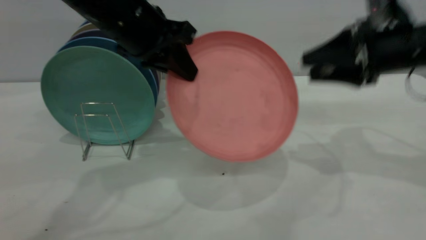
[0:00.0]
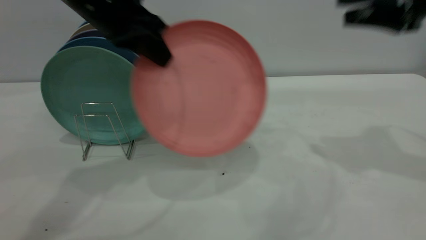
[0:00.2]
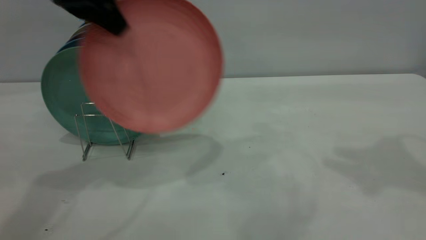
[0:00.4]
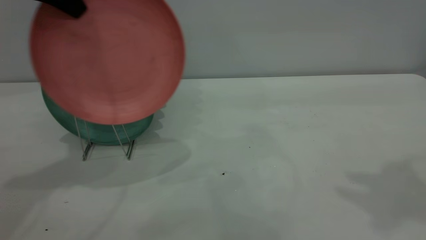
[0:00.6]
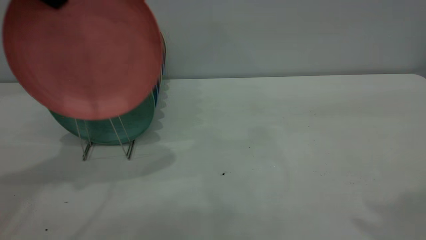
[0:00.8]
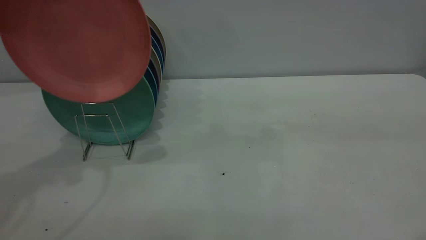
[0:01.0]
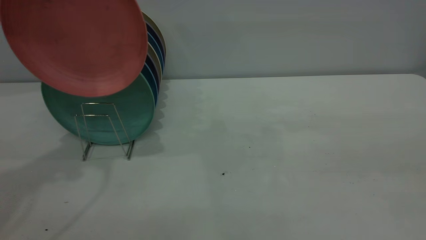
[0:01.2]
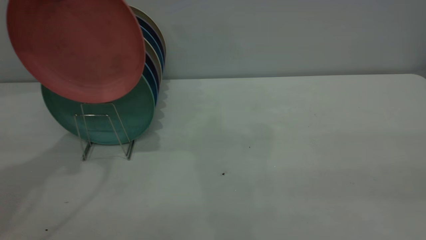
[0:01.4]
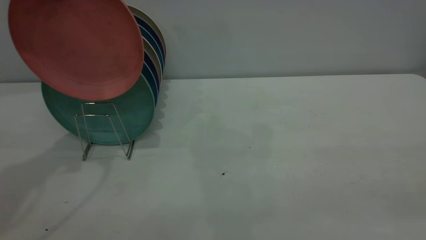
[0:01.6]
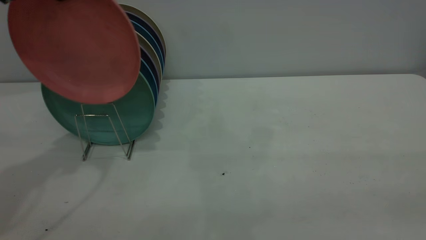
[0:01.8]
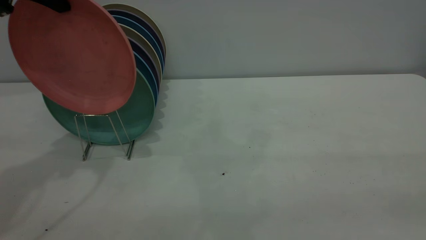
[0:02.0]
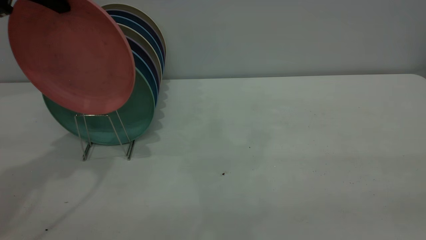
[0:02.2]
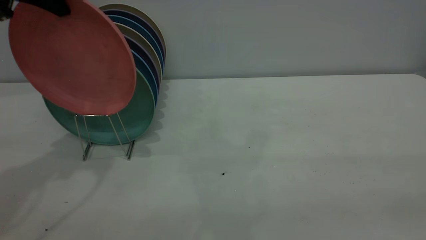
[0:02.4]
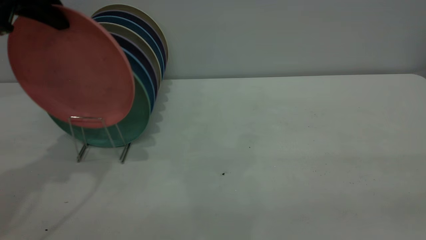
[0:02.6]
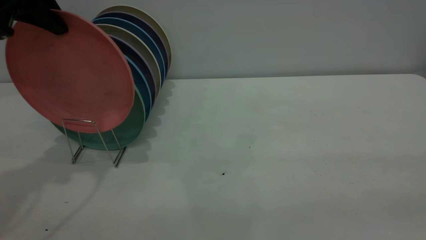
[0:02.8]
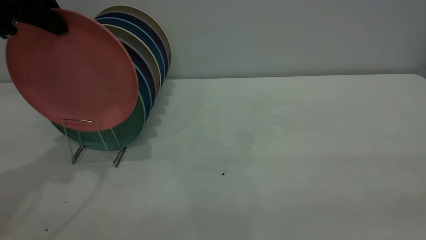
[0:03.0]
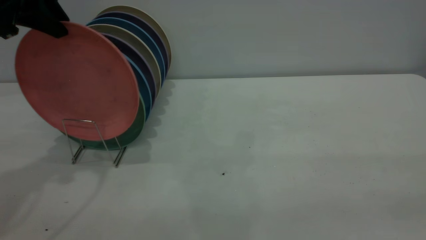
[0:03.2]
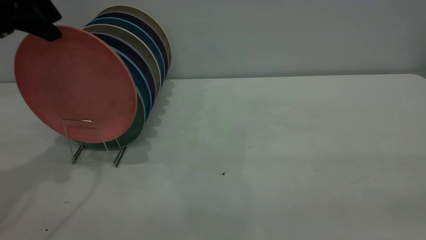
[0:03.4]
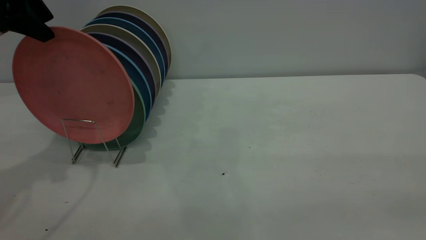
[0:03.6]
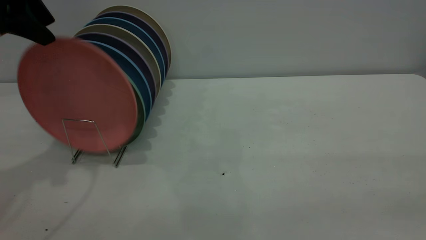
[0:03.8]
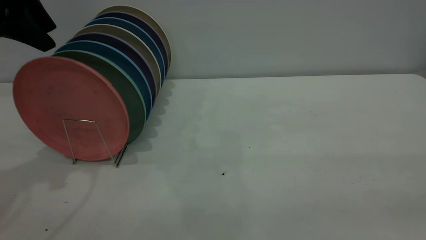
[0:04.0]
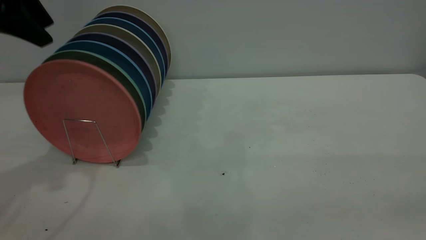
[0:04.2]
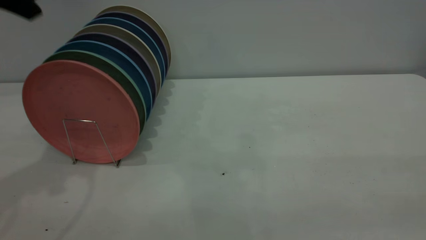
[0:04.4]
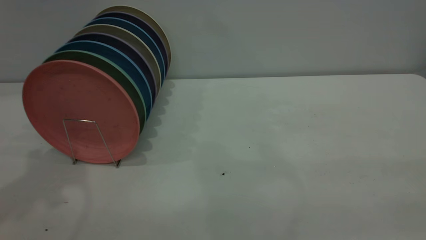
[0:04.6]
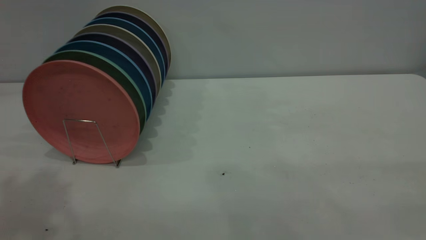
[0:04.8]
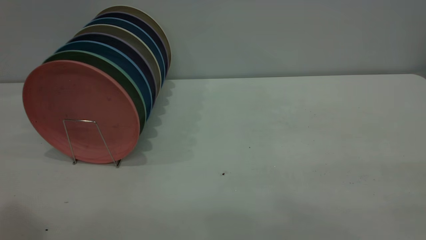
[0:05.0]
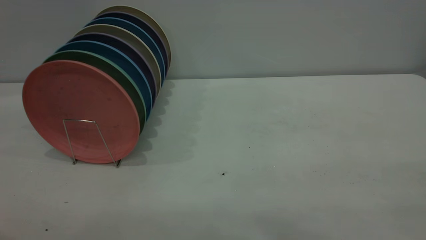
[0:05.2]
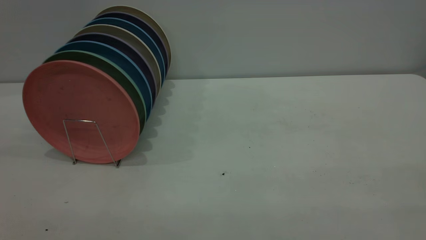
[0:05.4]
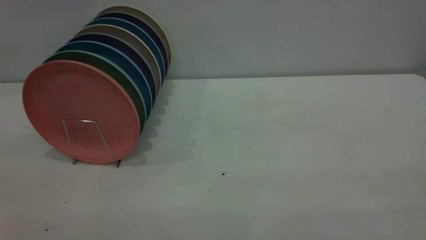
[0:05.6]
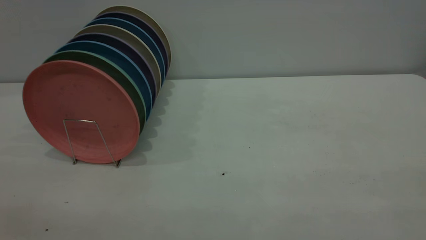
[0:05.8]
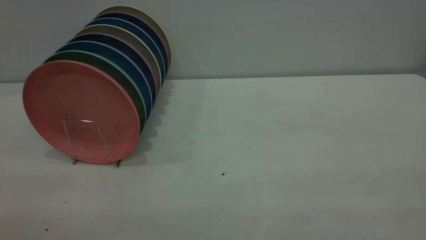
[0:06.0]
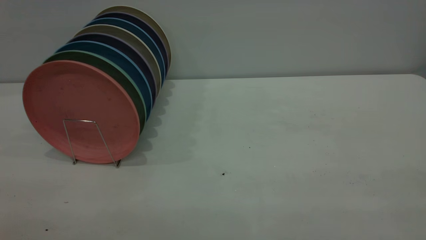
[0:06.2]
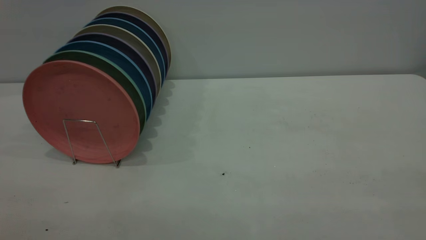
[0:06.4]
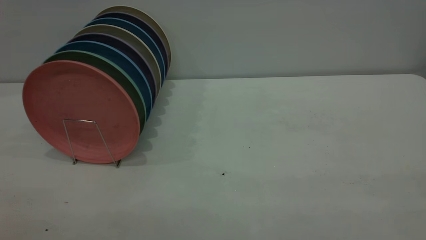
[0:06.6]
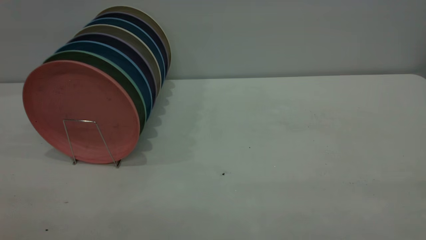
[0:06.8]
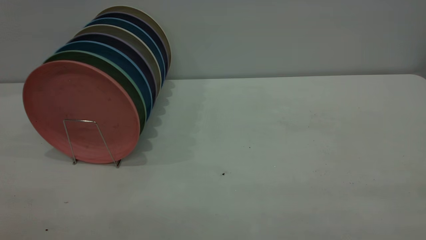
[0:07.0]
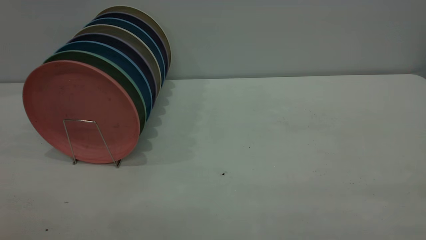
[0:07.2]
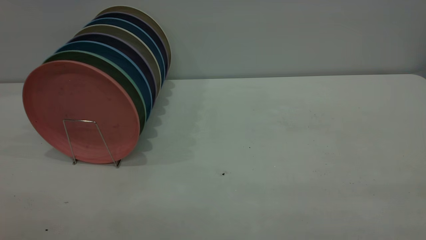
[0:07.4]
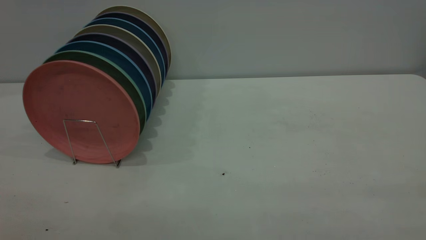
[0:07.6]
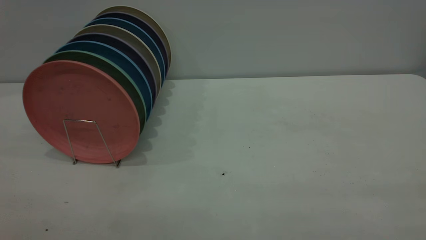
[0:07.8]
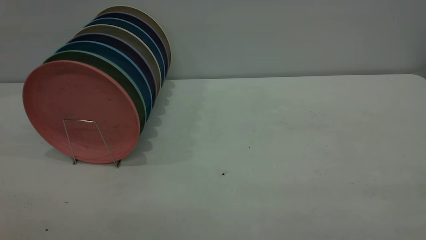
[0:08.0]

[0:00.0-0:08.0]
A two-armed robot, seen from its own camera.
Task of the whole recording: the right gripper grasp the pink plate, the right gripper pass the pink plate to the left gripper, and the left gripper place the pink plate on the plate rack.
Step, 0:00.8 to 0:04.2: Place the plate on the shelf.
0:00.0 to 0:01.6: The left gripper heads to the left and upward, covering about 15 cm. The right gripper goes about 35 cm backward and upward.
0:01.6 to 0:03.2: The left gripper opens its fingers.
0:03.2 to 0:04.8: The left gripper travels upward and backward by some 20 cm.

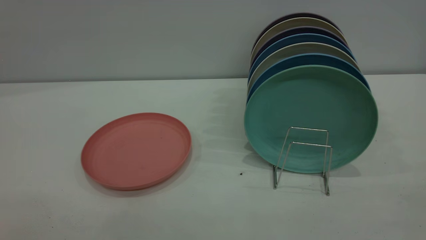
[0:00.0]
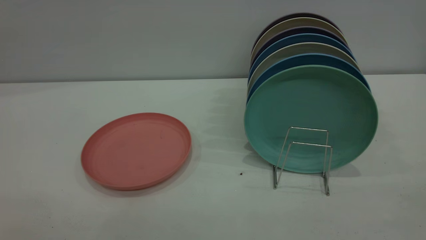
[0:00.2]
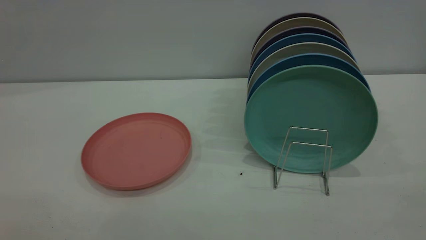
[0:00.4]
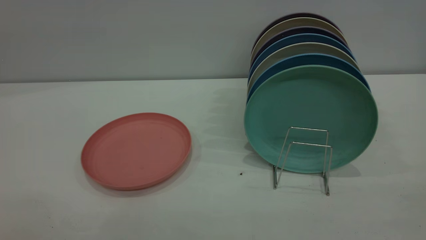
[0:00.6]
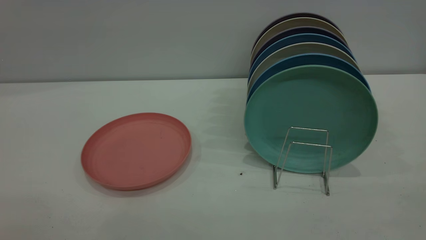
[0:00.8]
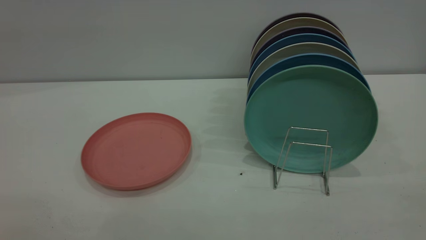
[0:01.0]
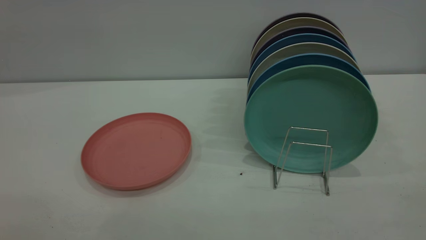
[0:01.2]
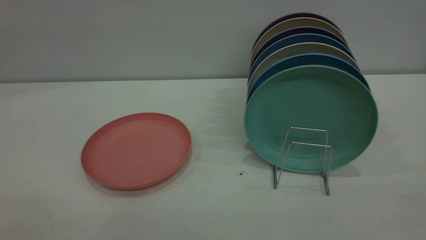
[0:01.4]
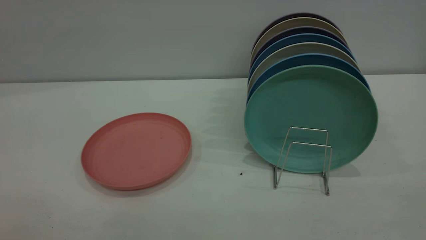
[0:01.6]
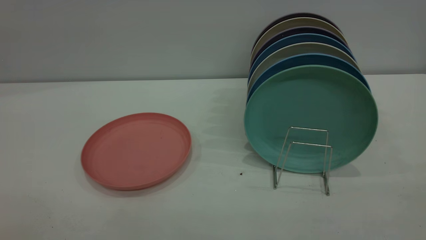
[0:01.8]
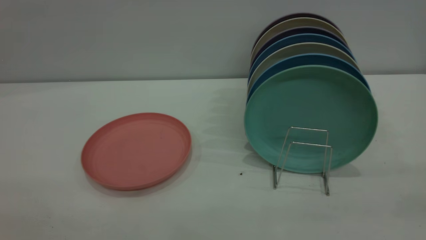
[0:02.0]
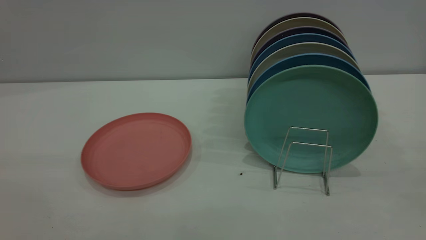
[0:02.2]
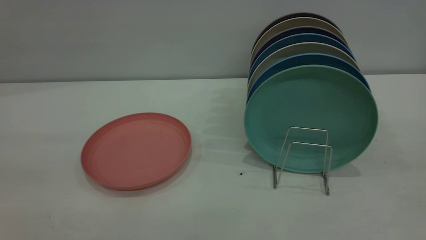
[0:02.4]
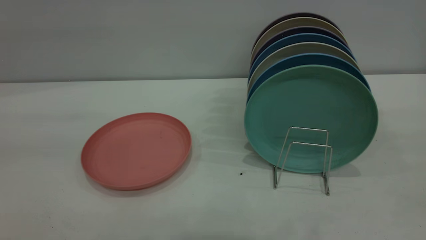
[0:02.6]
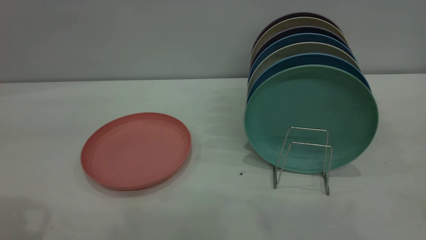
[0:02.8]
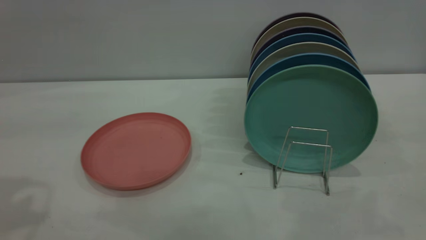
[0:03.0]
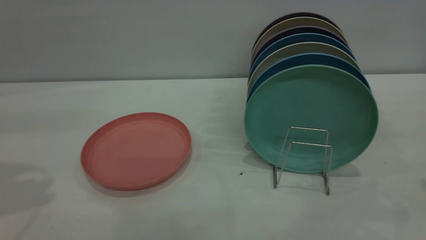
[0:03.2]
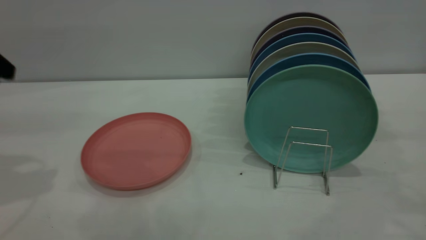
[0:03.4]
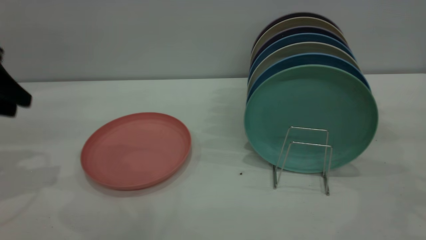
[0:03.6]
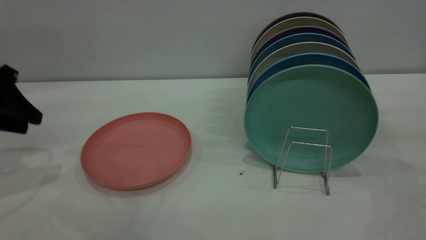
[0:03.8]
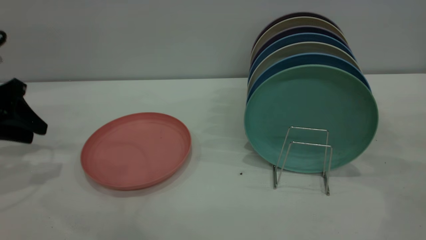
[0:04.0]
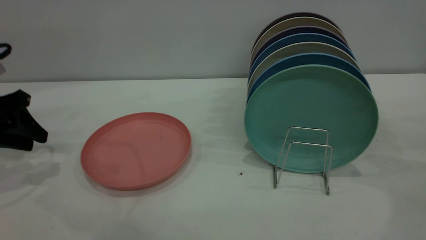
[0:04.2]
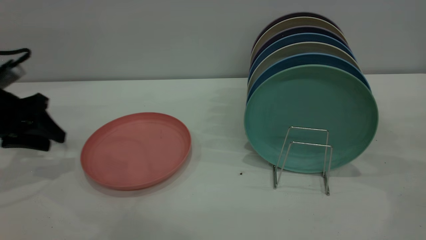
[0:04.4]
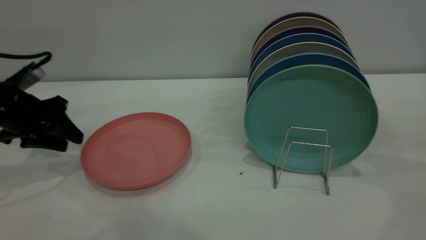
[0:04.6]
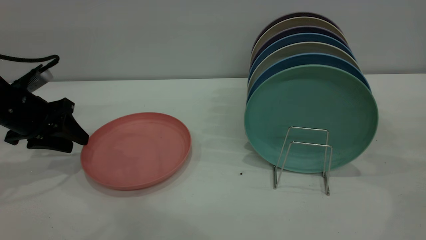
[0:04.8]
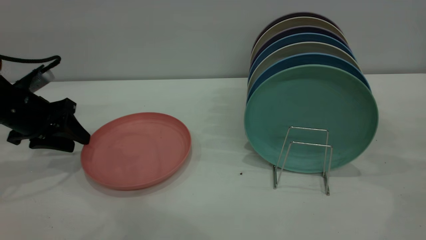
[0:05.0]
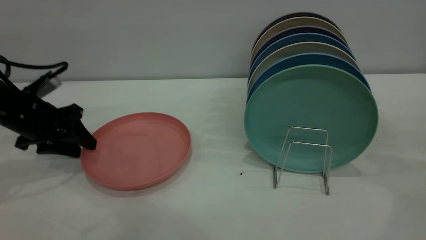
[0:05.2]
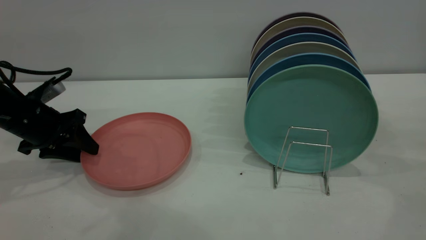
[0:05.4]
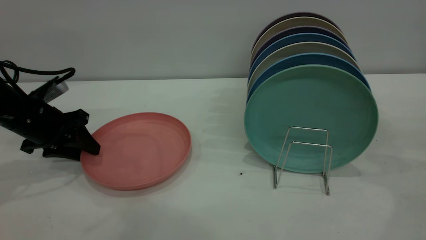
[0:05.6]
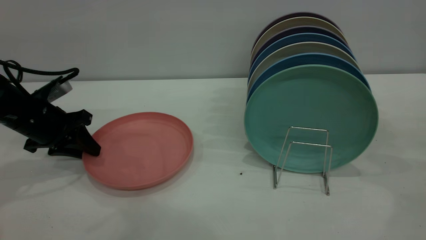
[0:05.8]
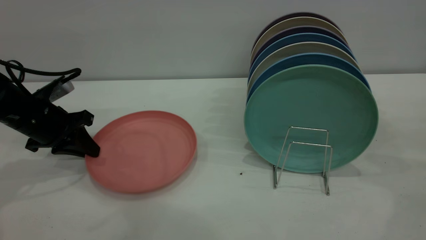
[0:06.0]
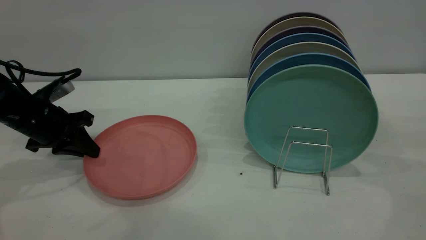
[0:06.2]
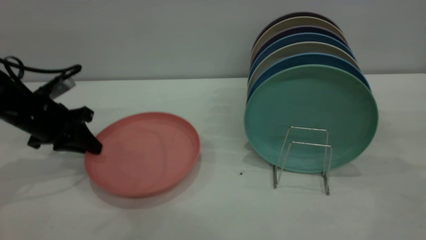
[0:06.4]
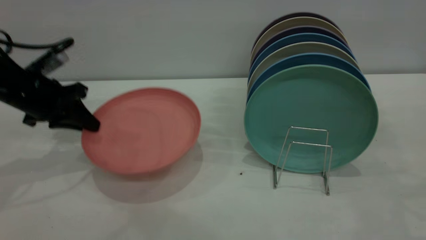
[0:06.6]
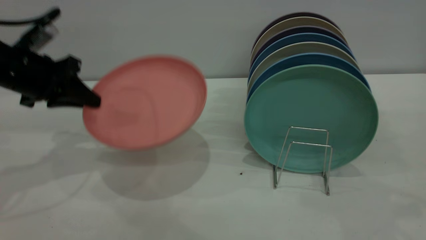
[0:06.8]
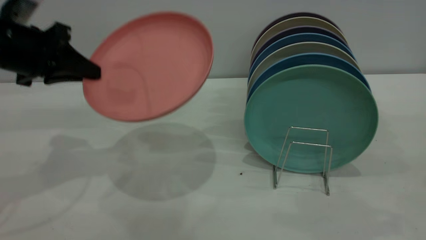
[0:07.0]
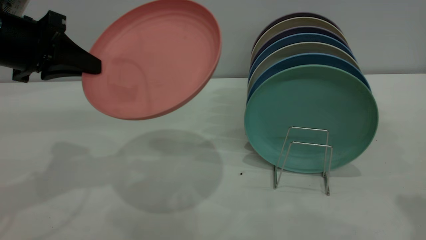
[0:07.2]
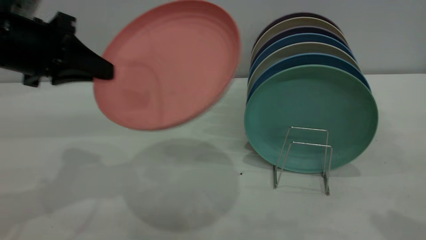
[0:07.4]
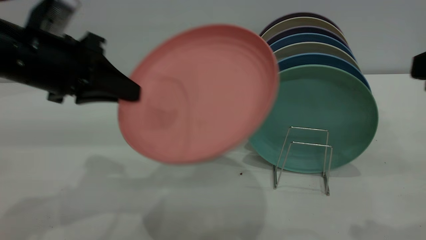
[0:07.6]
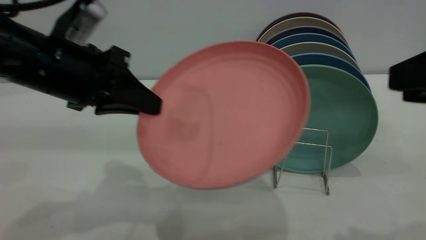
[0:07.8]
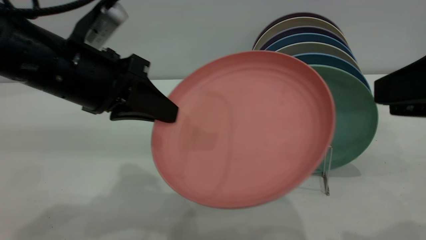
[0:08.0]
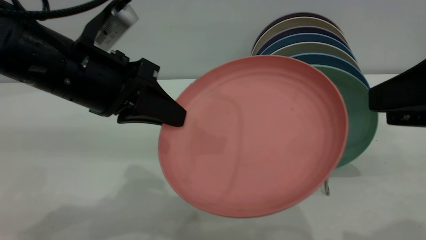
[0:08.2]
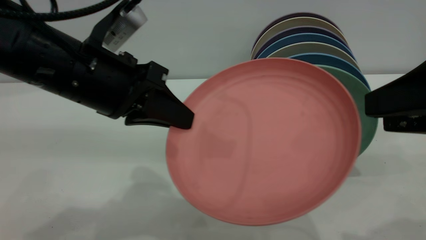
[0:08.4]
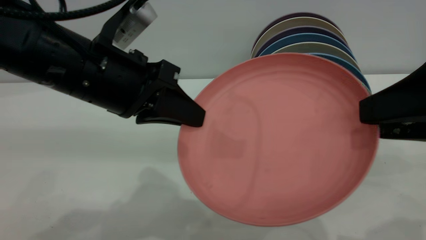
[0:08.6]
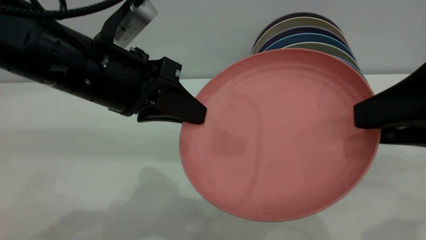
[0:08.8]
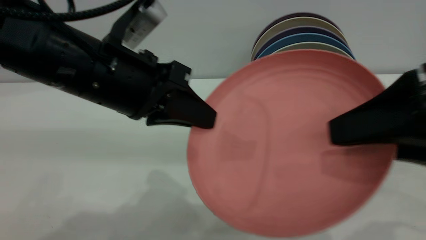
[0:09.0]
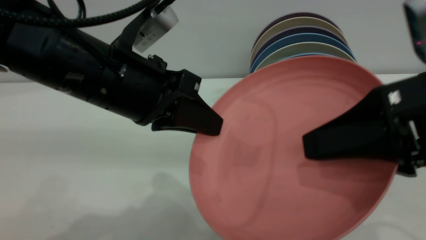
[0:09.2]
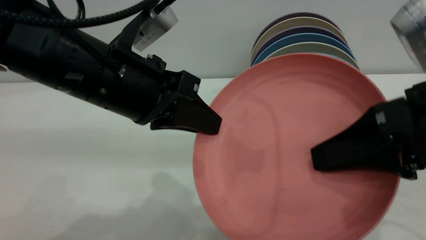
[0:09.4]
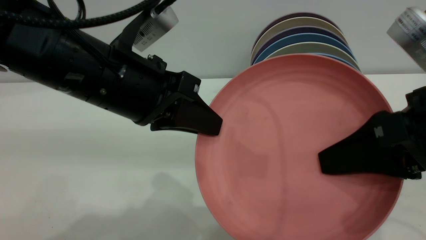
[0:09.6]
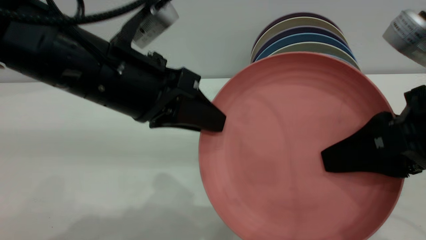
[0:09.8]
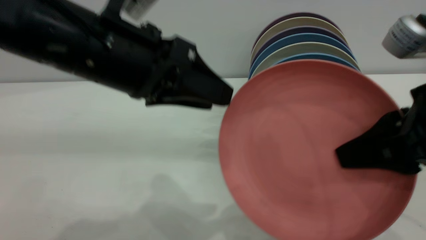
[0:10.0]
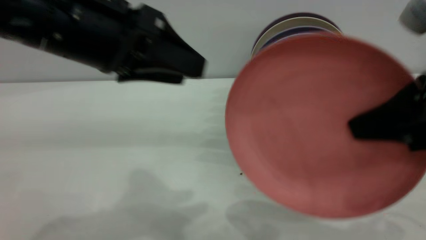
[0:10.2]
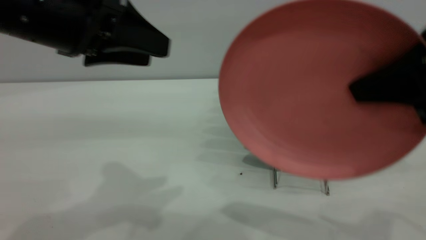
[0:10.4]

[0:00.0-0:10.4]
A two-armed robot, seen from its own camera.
Task of the whole recording: put the plate on the plate rack.
Step, 0:00.0 to 0:06.6: Pick up the plate with the left gripper.
Step, 0:06.8 to 0:10.2: Pass the plate from the left gripper to the right gripper.
0:00.0 to 0:01.4: Neither gripper changes place.
0:03.0 to 0:04.4: The left gripper moves downward and forward, roughly 25 cm.
0:04.4 to 0:06.0: The left gripper shifts by about 5 cm, and closes.
0:06.0 to 0:07.4: The right gripper shifts some 20 cm to the left, backward and upward. The left gripper goes some 15 cm upward, backward and to the right.
0:07.4 to 0:09.0: The right gripper moves to the left, roughly 10 cm, while the left gripper shifts roughly 15 cm to the right and backward.
0:09.0 to 0:10.4: The left gripper heads to the left and upward, covering some 10 cm, and opens its fingers; the right gripper moves some 5 cm, and closes its fingers.
